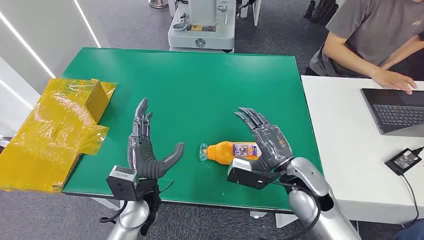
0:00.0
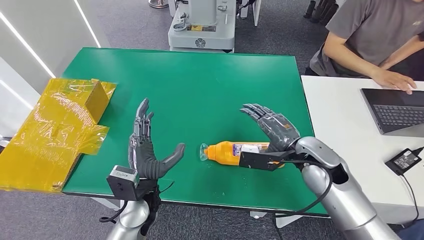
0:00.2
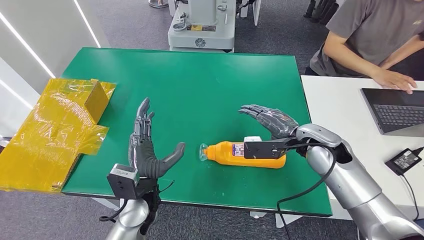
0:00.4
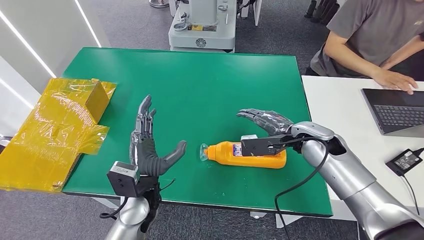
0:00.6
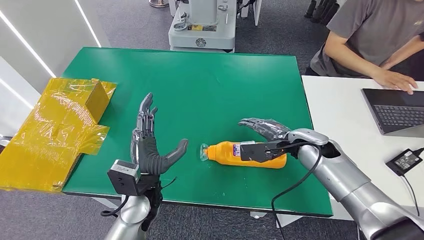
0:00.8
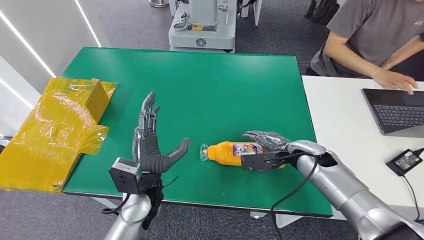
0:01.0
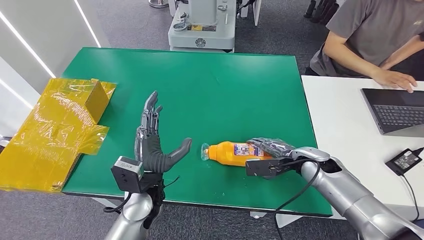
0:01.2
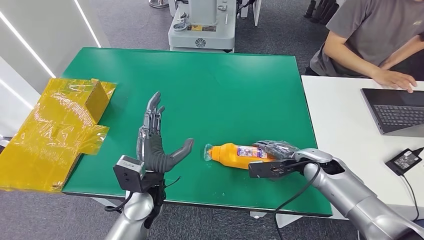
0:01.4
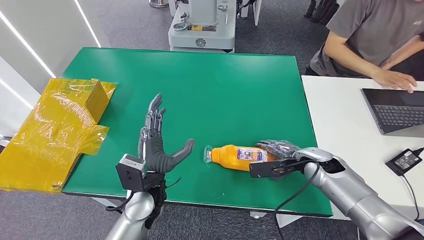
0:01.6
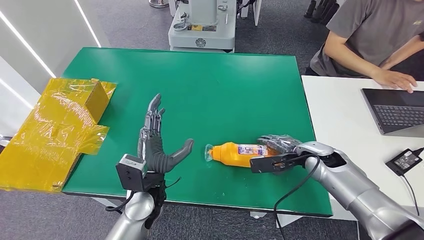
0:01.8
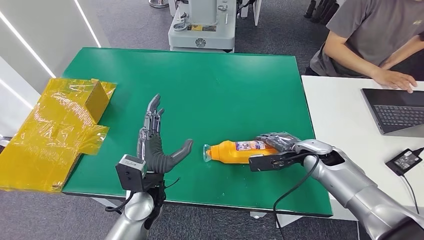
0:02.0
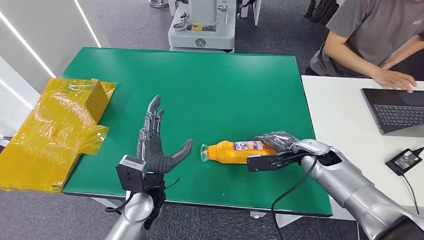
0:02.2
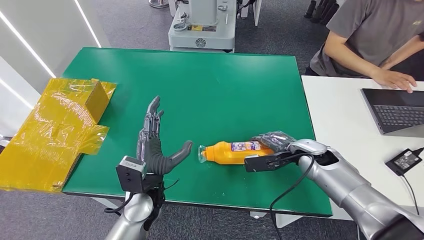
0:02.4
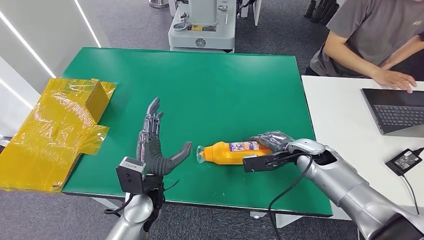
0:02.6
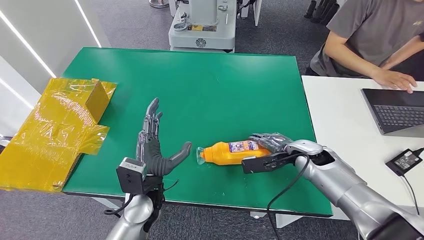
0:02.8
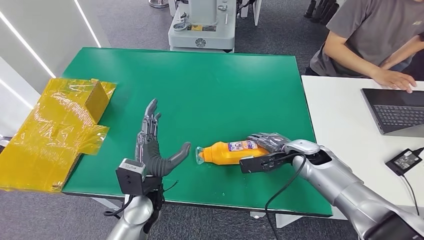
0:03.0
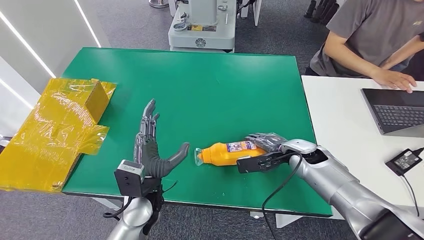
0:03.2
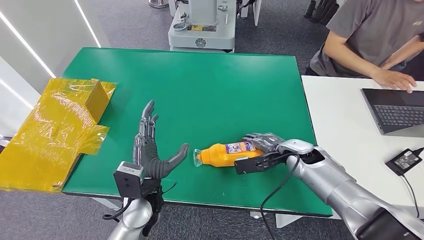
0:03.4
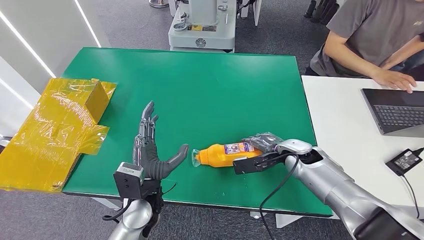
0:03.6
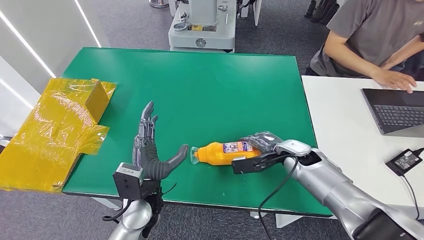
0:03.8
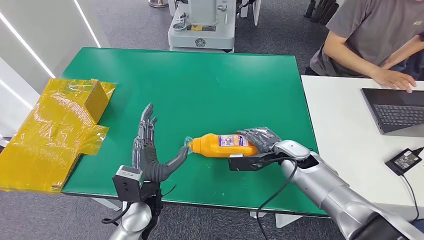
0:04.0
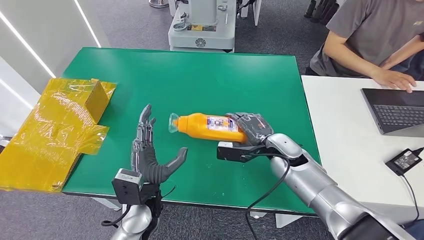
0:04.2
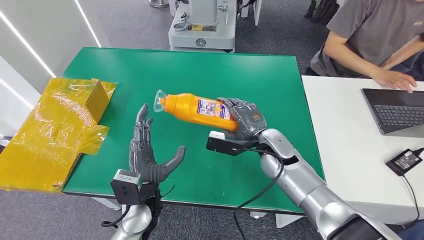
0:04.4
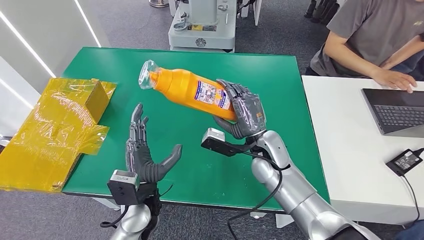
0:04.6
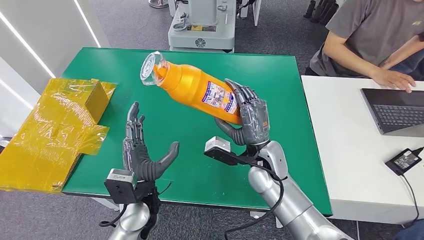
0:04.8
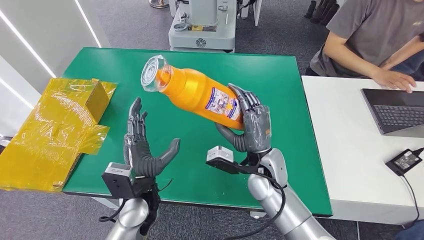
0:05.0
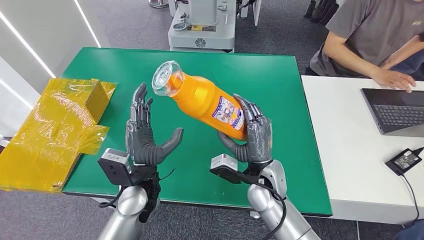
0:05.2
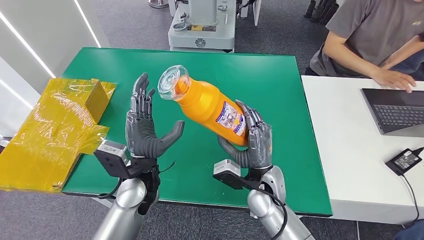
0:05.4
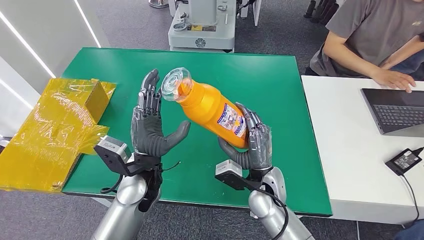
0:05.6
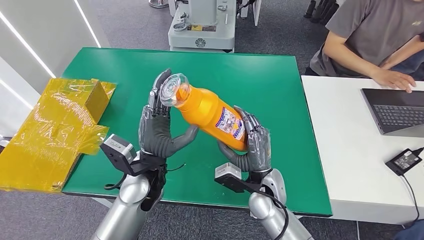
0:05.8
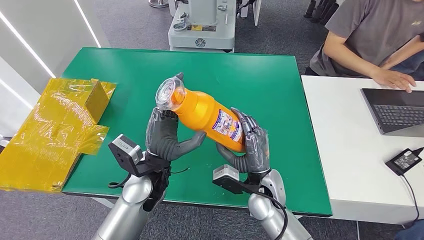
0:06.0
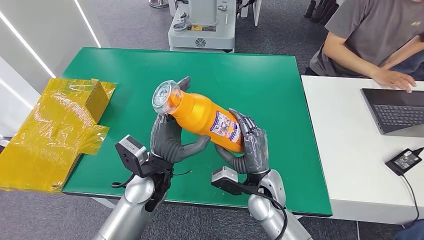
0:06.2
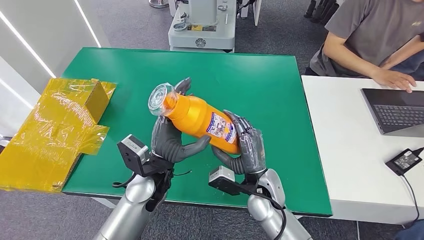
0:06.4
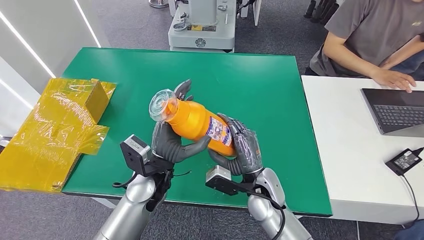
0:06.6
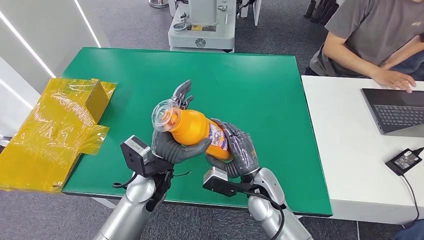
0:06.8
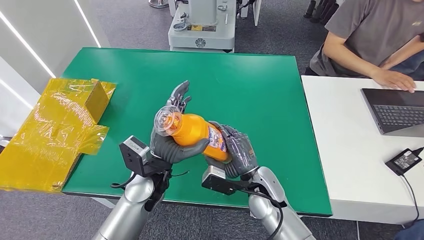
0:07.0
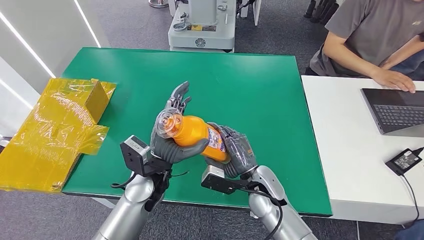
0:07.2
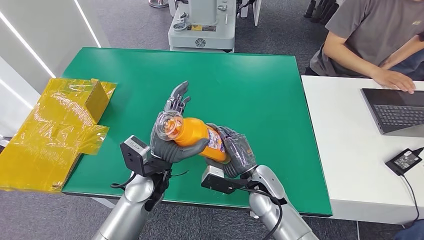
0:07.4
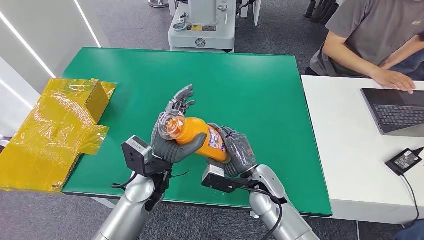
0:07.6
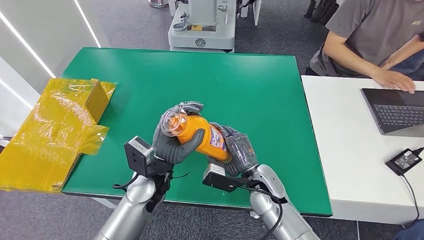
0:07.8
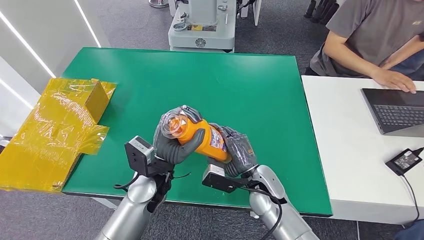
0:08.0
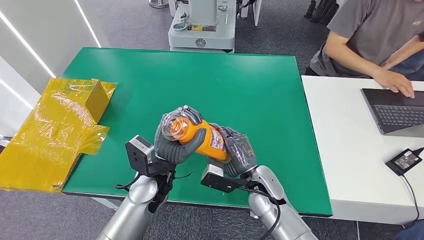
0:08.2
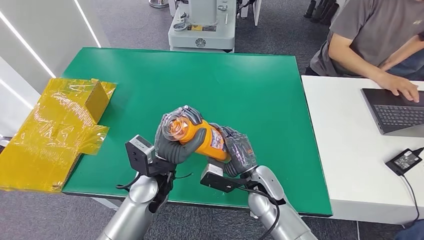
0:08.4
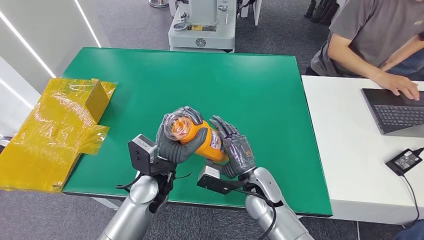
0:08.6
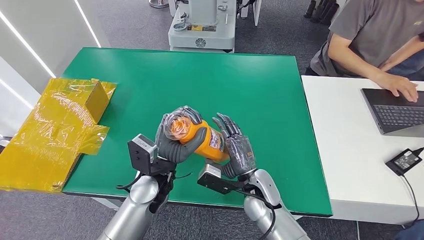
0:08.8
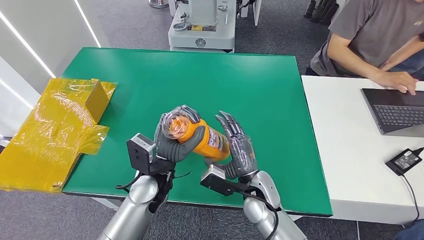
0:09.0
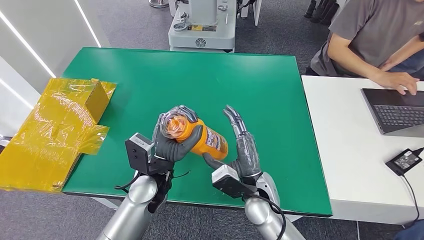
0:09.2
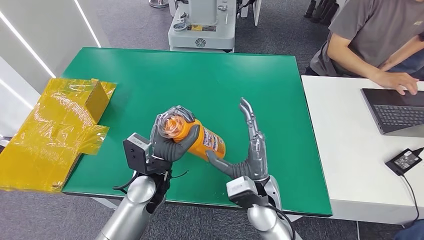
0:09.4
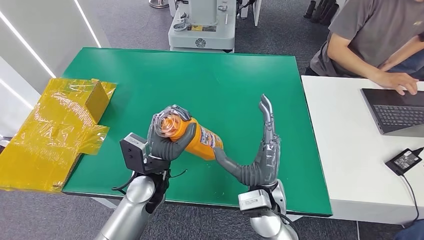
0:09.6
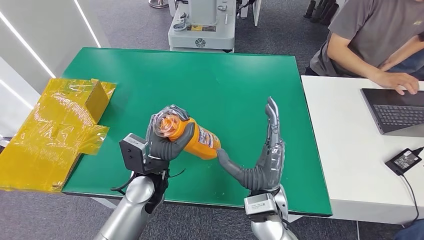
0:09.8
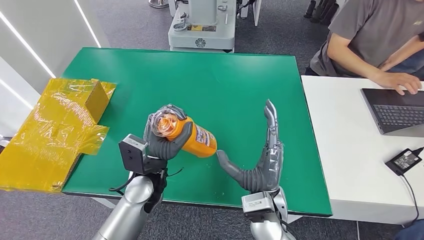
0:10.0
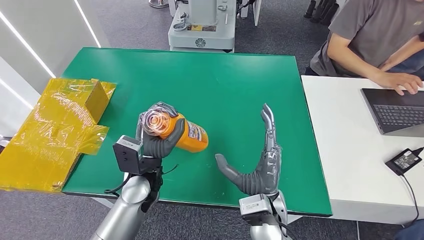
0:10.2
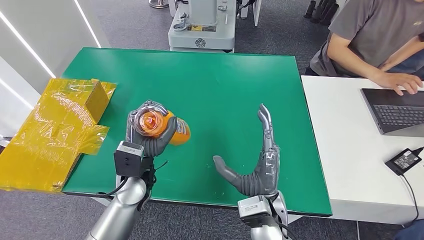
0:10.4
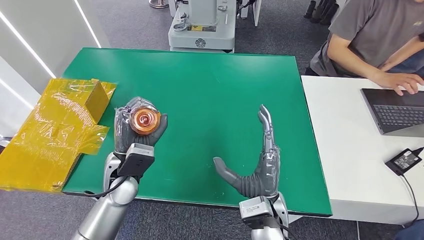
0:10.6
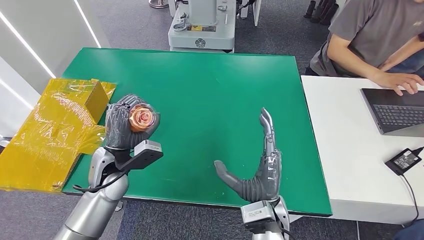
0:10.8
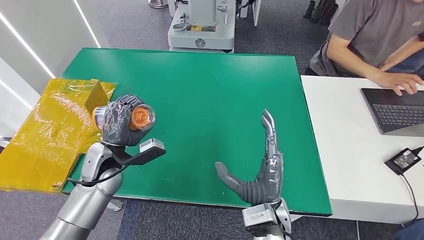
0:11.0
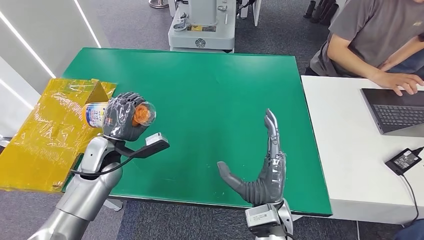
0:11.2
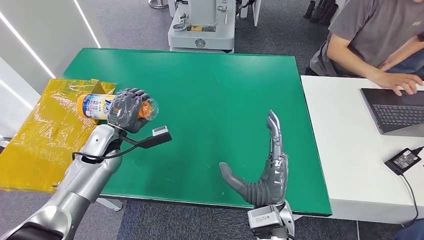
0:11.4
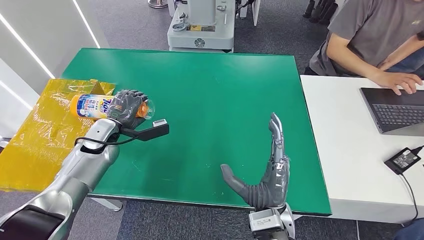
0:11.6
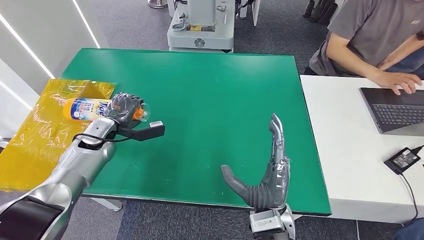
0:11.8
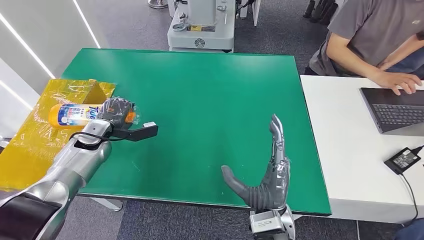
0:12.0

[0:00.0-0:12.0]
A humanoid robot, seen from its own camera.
Step, 0:00.0 to 0:04.4: Pick up the bottle from the table.
Step, 0:04.6 to 0:11.8: Turn the bottle to the front side.
0:01.6 to 0:03.0: The hands move only a little.
0:03.0 to 0:04.4: The right hand goes about 10 cm to the left.
0:04.4 to 0:06.0: The left hand travels upward and forward by about 10 cm; the right hand heads backward, covering approximately 10 cm.
0:07.6 to 0:09.0: There are only small adjustments of the hands.
0:09.0 to 0:10.4: The right hand is displaced backward and upward by roughly 10 cm.
0:10.4 to 0:12.0: The left hand goes some 20 cm to the left and forward.

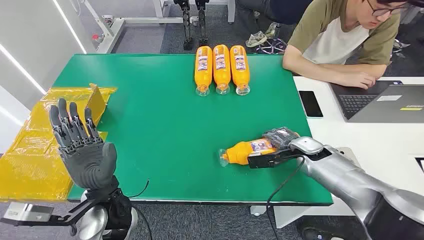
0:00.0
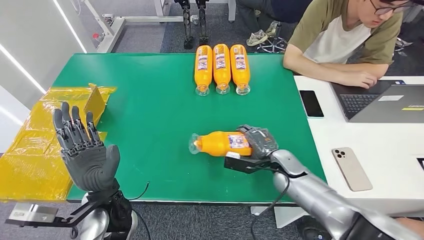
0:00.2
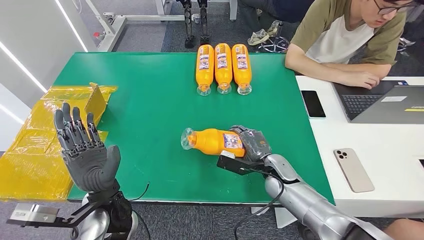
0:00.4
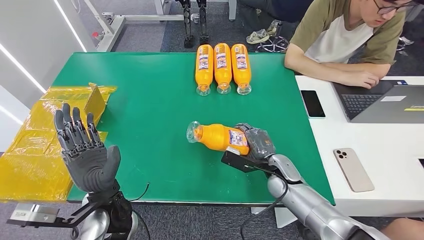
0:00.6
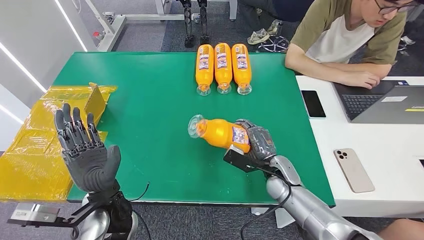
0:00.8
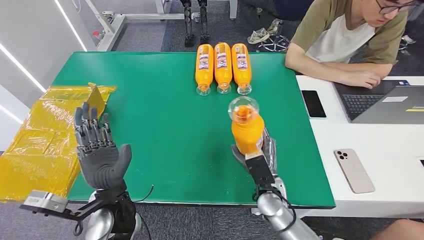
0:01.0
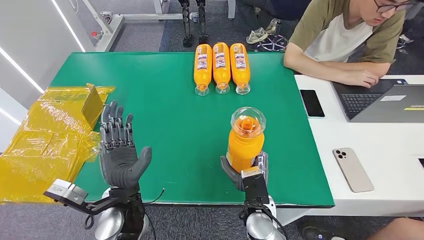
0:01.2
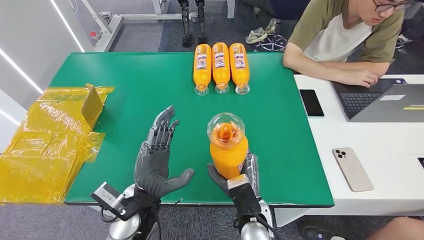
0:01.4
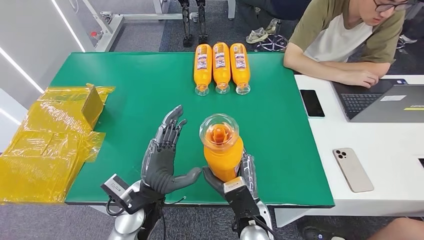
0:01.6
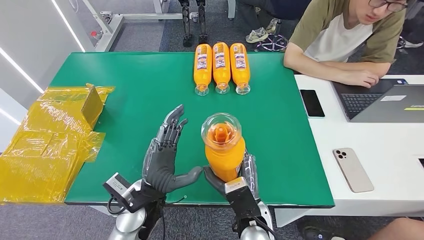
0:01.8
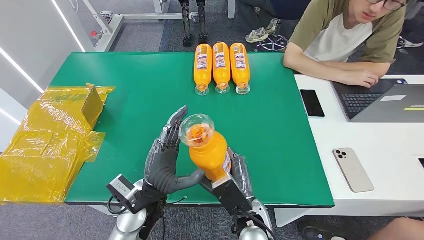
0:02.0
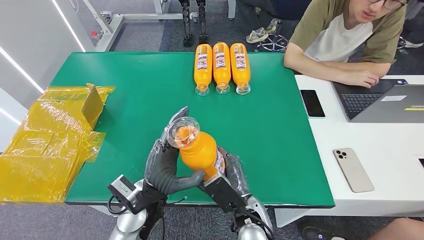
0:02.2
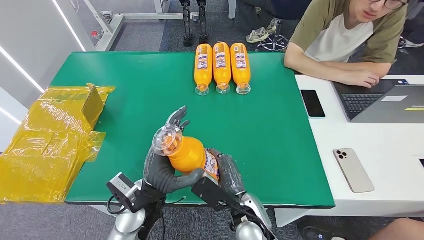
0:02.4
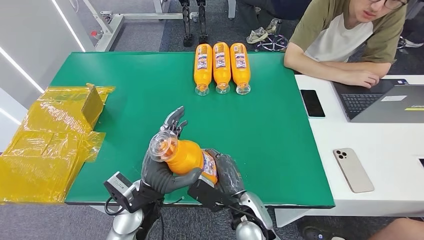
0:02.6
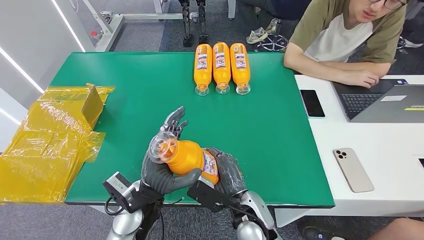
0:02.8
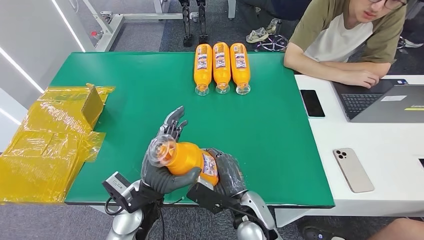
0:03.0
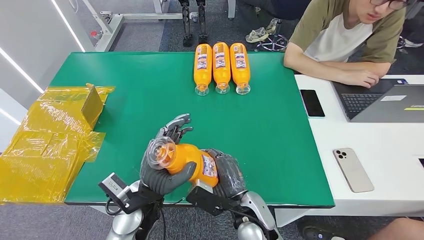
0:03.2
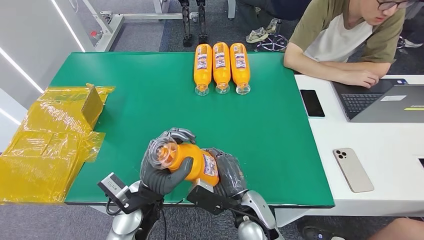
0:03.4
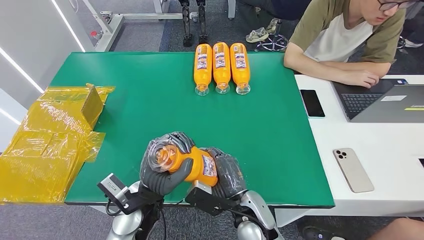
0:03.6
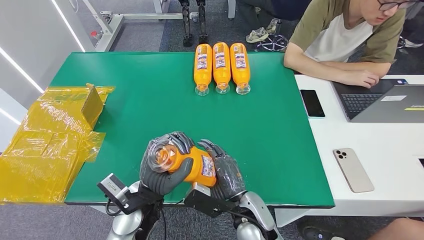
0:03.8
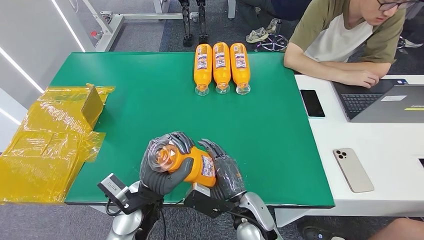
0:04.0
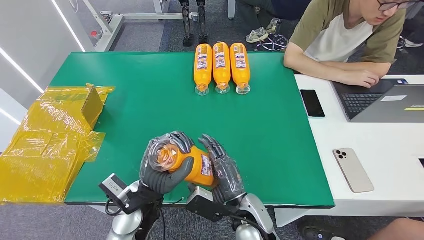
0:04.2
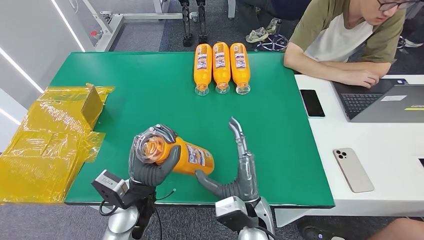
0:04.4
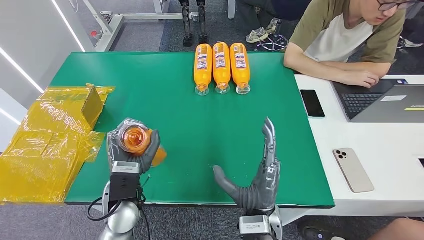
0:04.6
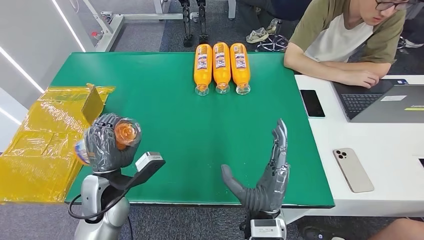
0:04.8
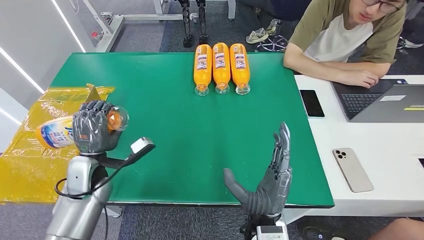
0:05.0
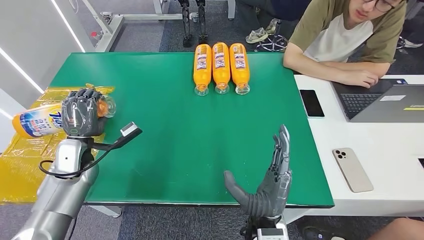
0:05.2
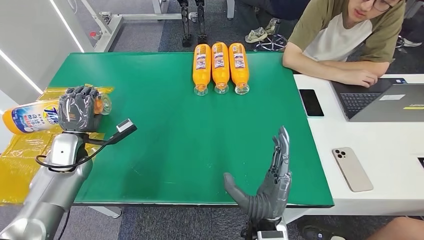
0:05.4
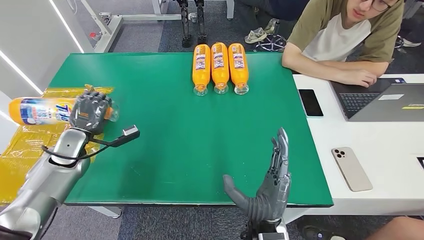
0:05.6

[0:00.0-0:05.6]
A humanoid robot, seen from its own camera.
Step, 0:00.0 to 0:02.2: Pick up the bottle from the table.
0:02.8 to 0:04.2: The hands stay close to where they were, moving slightly.
